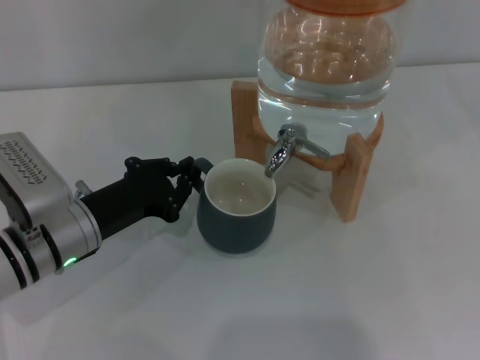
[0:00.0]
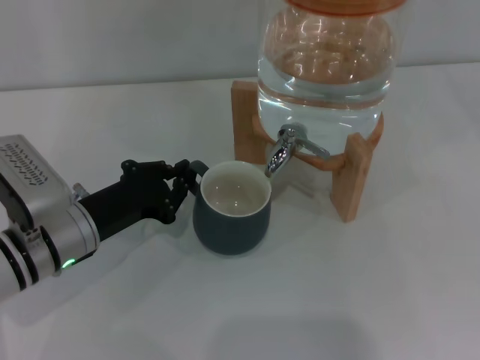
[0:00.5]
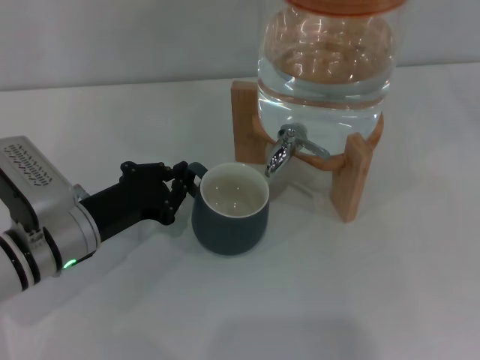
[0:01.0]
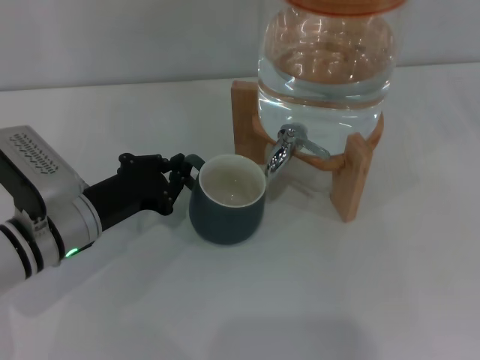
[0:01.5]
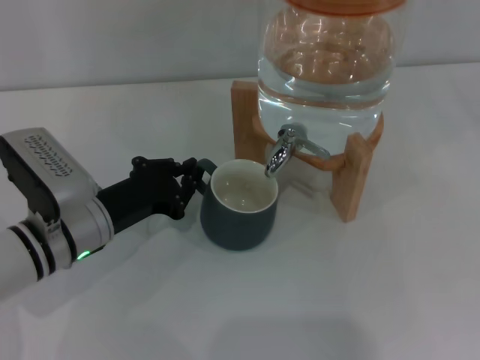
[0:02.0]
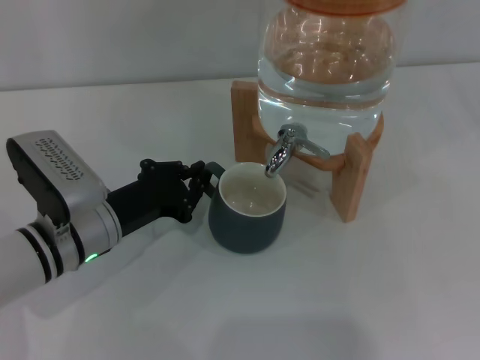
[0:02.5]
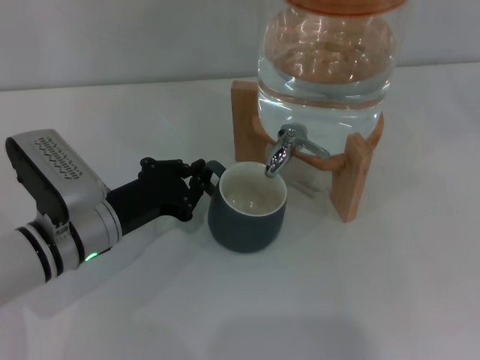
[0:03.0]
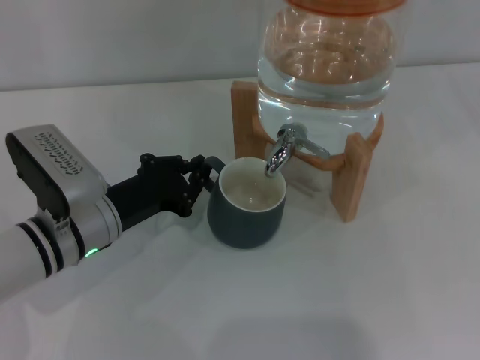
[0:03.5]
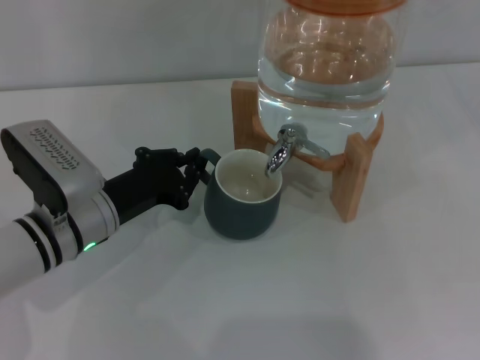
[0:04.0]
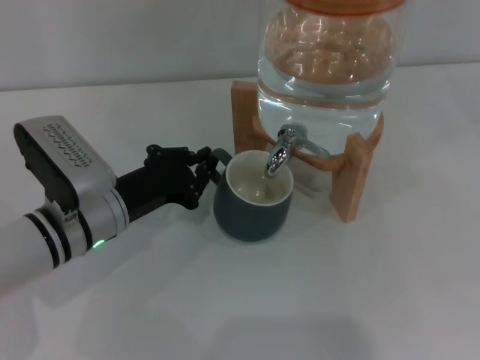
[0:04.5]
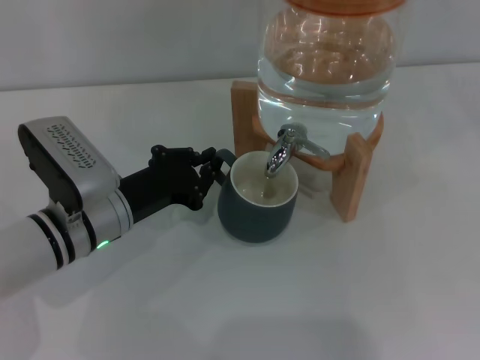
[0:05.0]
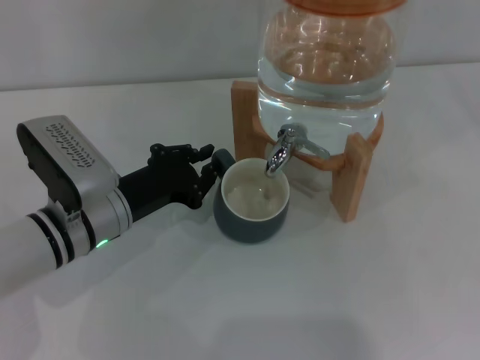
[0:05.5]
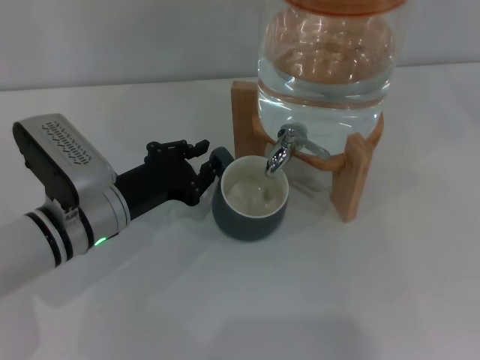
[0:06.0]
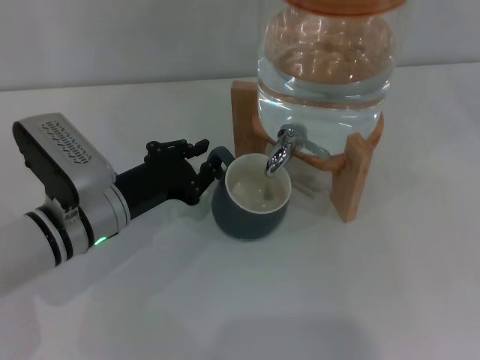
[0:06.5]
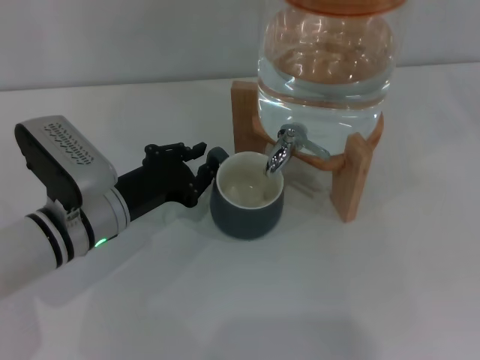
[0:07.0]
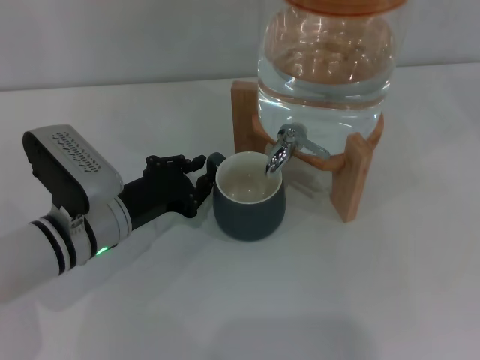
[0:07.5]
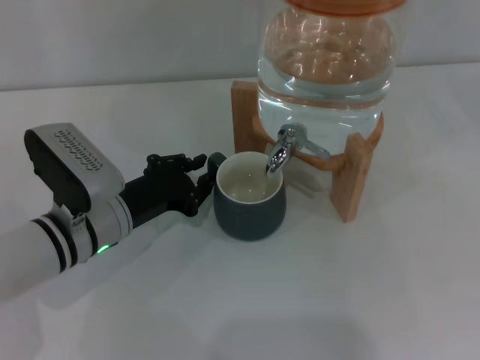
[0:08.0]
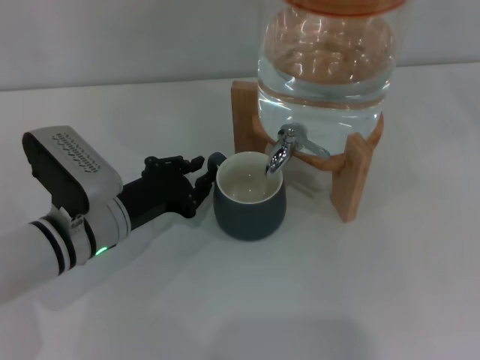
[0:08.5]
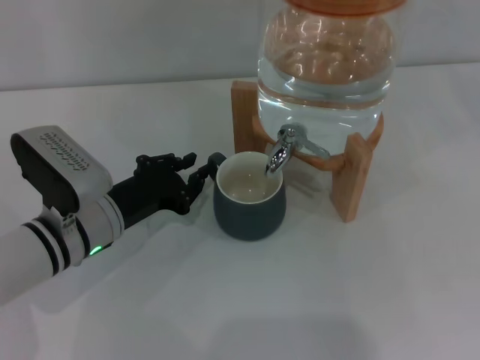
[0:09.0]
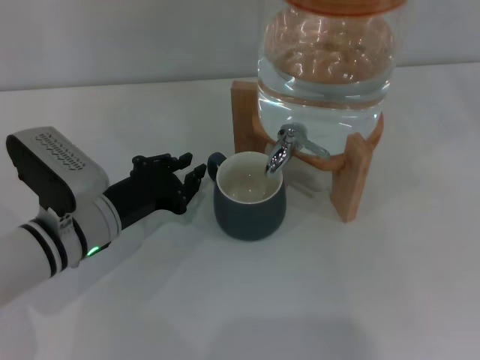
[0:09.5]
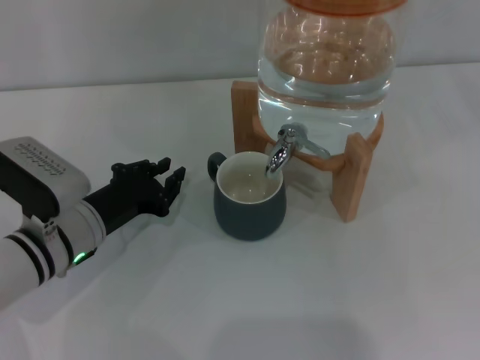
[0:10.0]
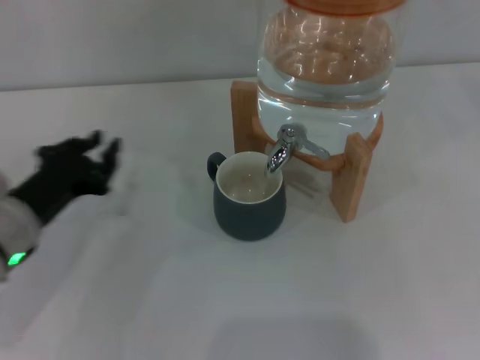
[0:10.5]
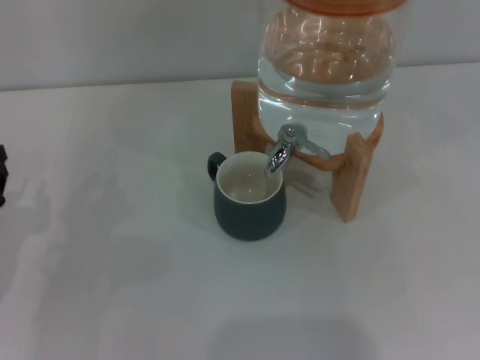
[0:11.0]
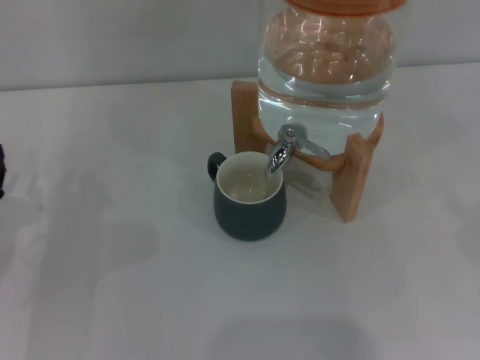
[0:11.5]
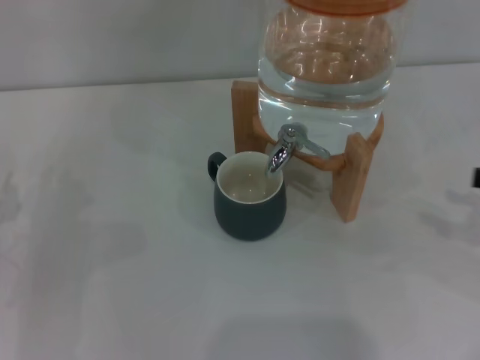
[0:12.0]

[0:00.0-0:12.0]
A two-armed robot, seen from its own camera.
Task of the whole recording: the left gripper pick up the black cup and place it horizontally under the faucet, the right gripper turn on the faucet to fill the cup, and then turn off the faucet.
Step, 0:00.0 to 0:10.0: Move the cup beneath the water dispenser nozzle with the left gripper.
0:00.0 to 0:02.0: The grippers move only a little.
0:02.0 to 0:04.0: The two grippers keep their place.
0:04.0 to 0:08.0: Neither gripper changes place.
0:08.0 to 0:10.0: There are only small adjustments of the grippers.
0:10.0 to 0:12.0: The two grippers go about 15 cm to the left.

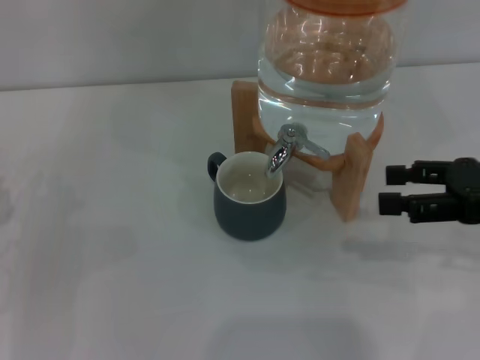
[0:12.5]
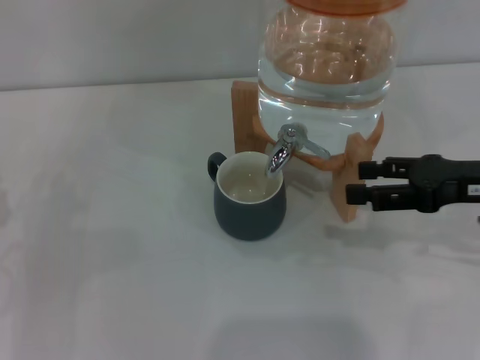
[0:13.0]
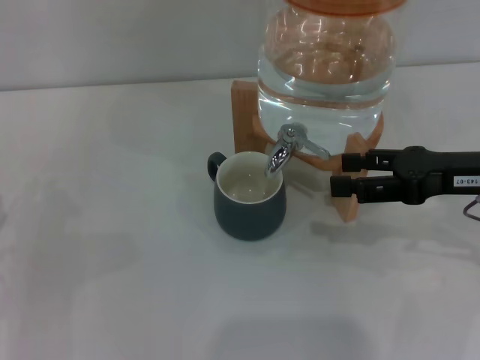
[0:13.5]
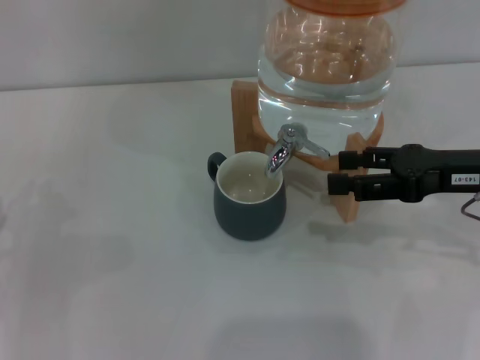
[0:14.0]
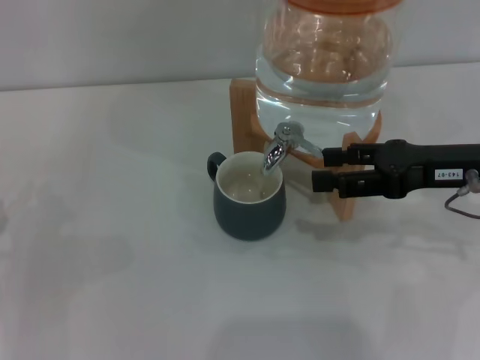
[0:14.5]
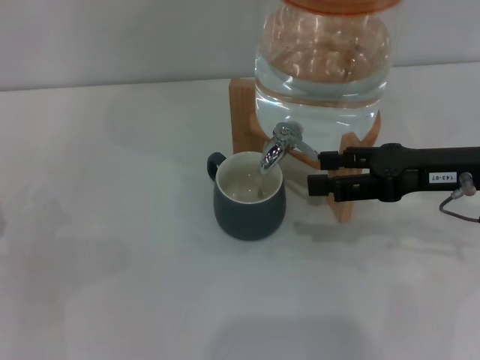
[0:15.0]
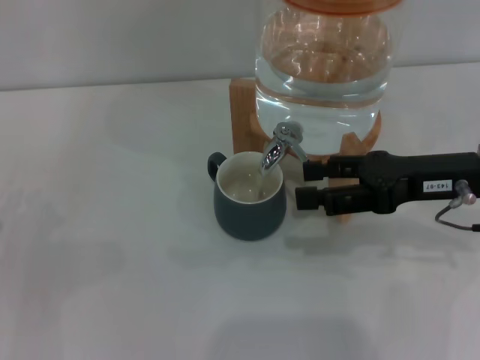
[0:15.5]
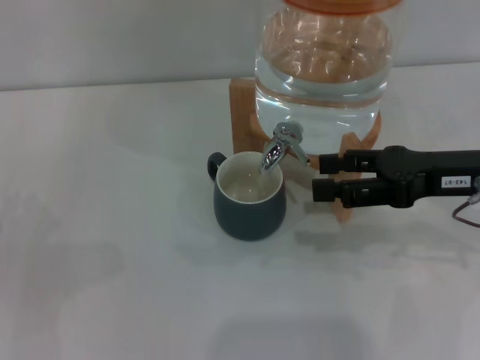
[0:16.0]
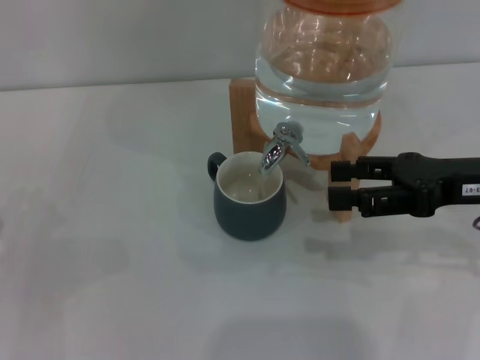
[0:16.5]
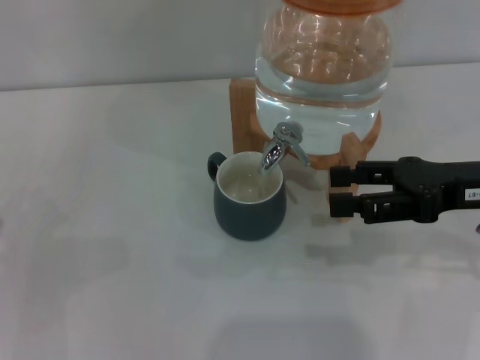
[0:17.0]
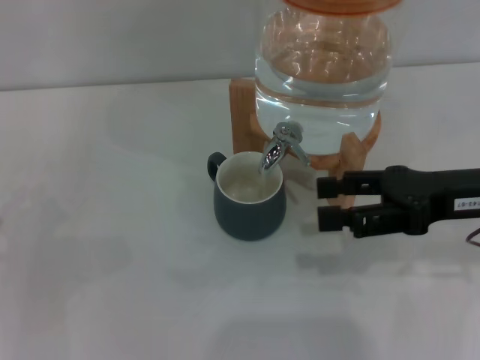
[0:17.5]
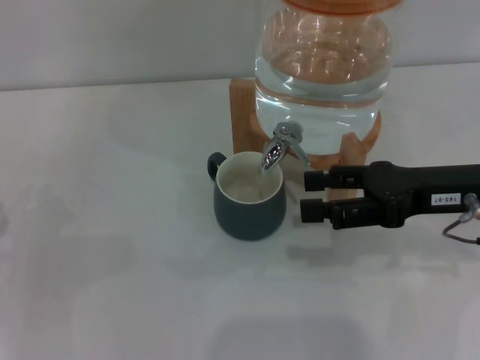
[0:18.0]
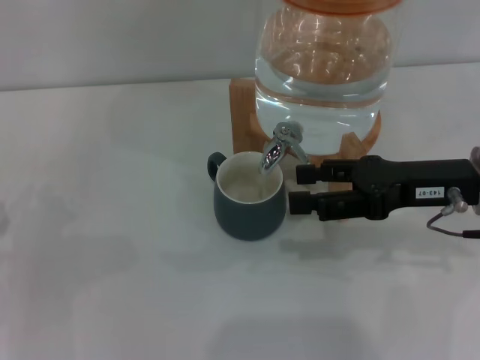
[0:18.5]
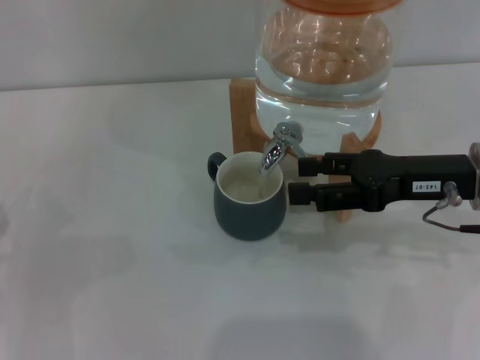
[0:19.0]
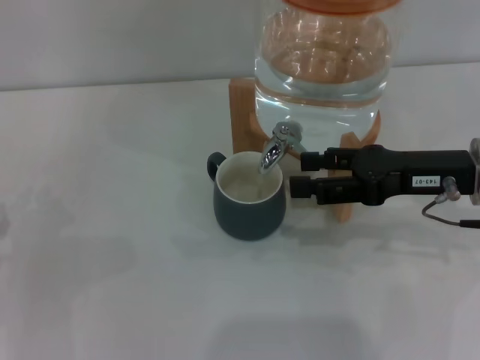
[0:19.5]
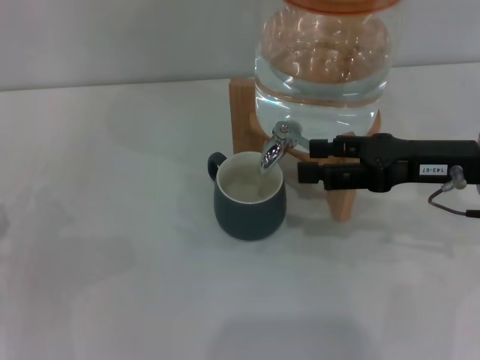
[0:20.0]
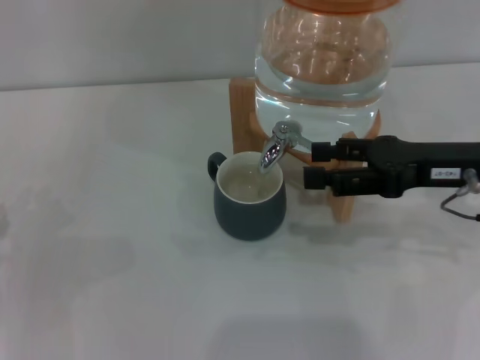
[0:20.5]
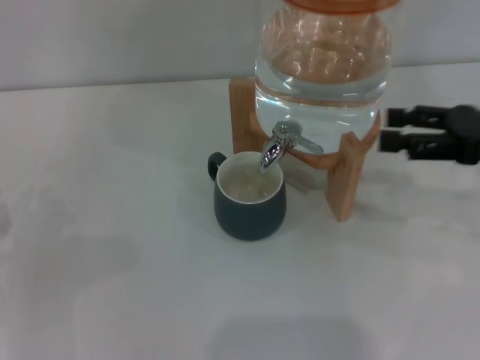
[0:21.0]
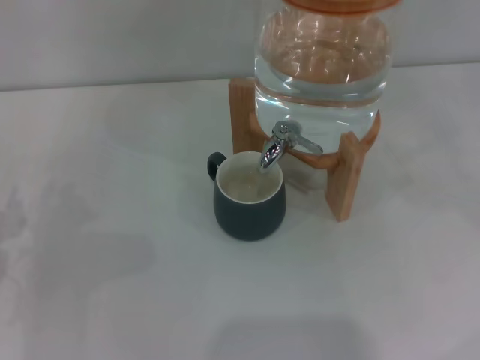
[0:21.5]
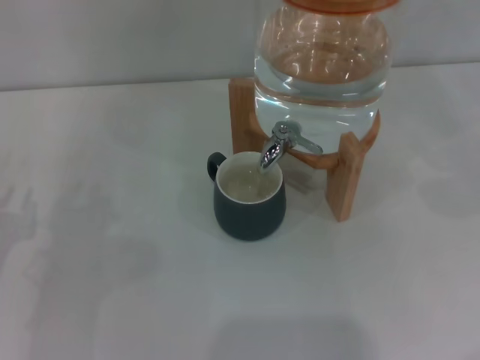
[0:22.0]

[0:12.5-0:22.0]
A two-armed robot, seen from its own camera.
Task of the whole recording: the left gripper pick up the black cup and place it horizontally under the faucet, the right gripper turn on the faucet to fill the cup, and then turn off the faucet.
Step, 0:12.5 to 0:18.0: Open the dispenser valve and fill the cup with water with the right gripper.
Step, 0:18.5 to 0:20.5: Close the dispenser valve with the right gripper.
0:12.5 to 0:14.5: The right gripper ends up some 5 cm from where it was.
0:14.5 to 0:20.0: The grippers stay close to where they were, moving slightly.
0:20.0 to 0:22.0: The right gripper goes some 25 cm to the right.
